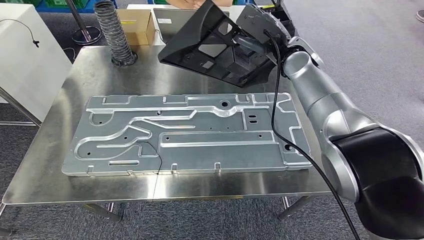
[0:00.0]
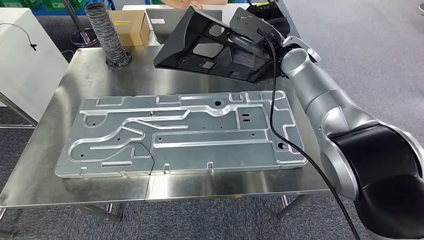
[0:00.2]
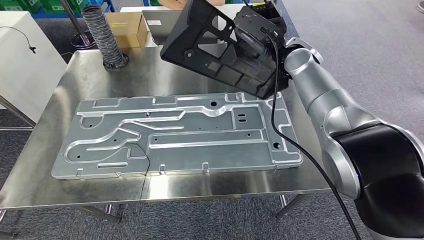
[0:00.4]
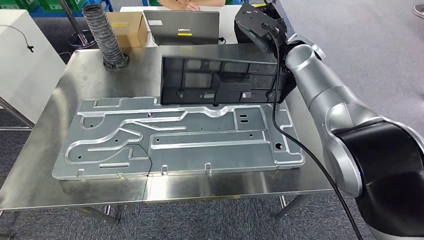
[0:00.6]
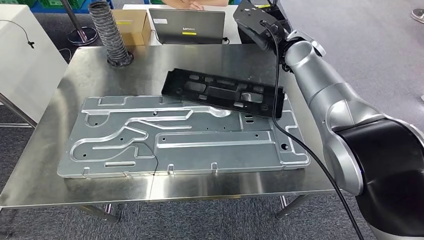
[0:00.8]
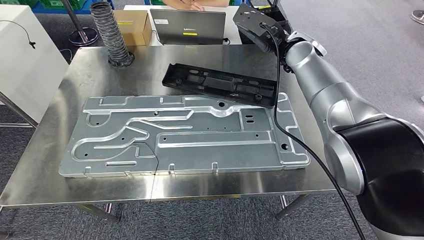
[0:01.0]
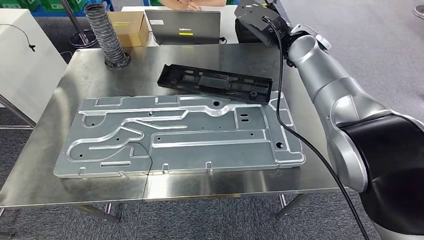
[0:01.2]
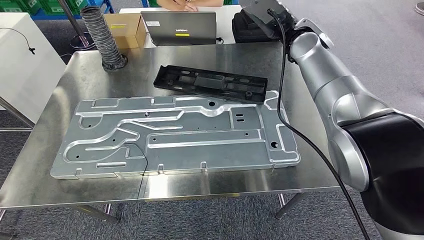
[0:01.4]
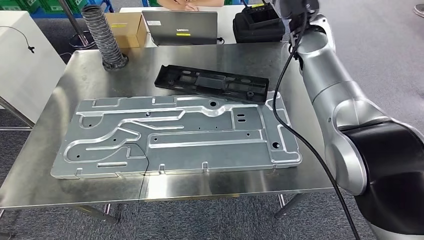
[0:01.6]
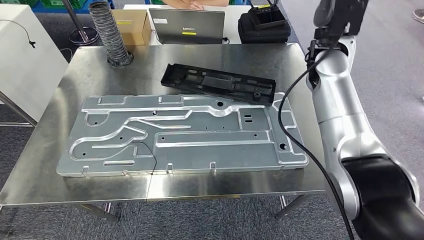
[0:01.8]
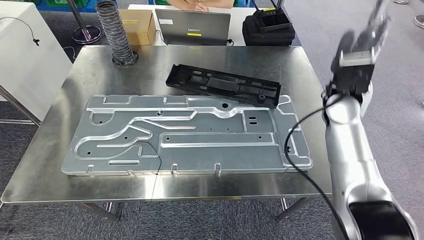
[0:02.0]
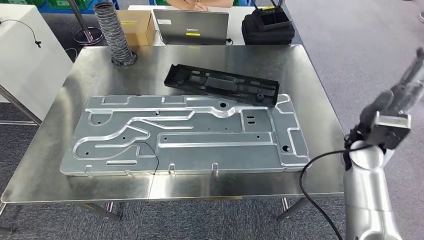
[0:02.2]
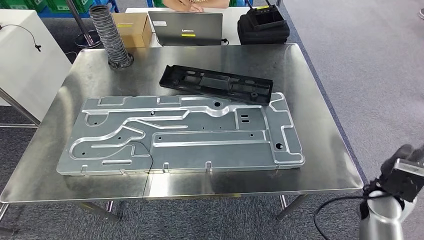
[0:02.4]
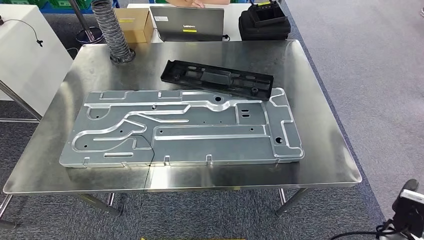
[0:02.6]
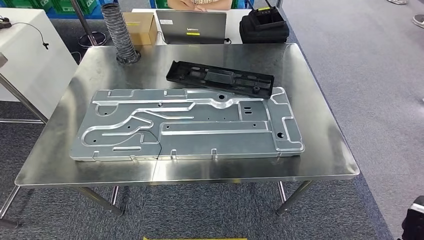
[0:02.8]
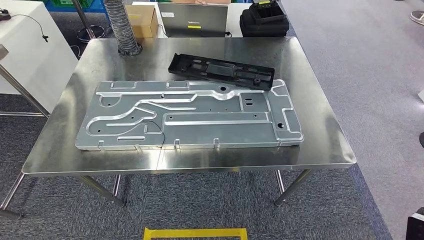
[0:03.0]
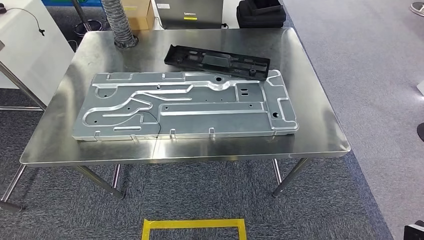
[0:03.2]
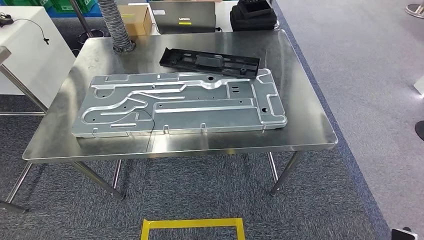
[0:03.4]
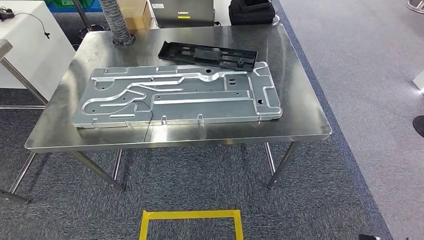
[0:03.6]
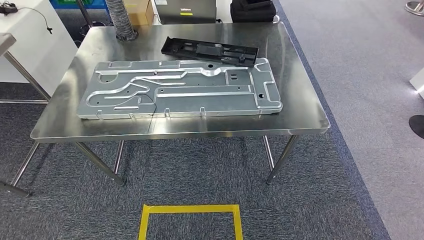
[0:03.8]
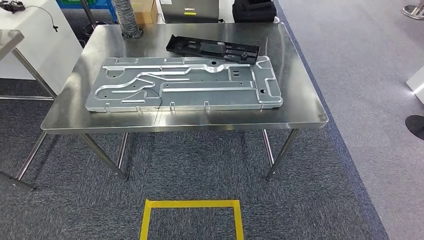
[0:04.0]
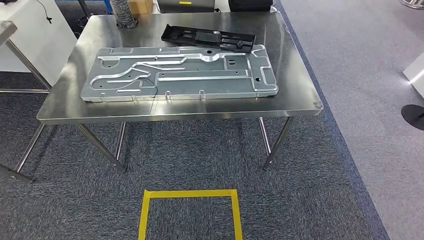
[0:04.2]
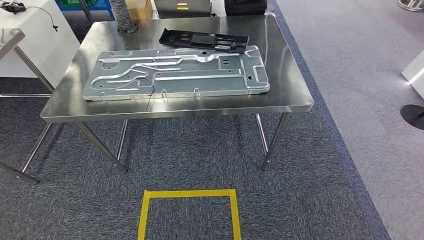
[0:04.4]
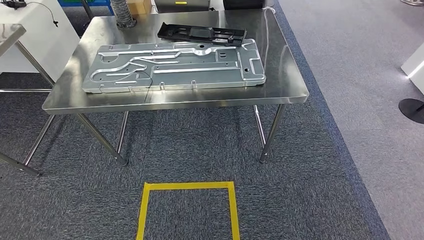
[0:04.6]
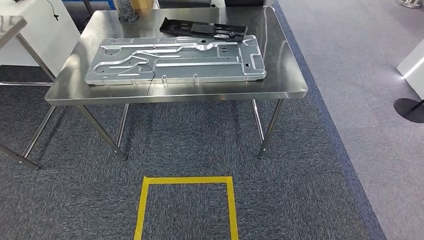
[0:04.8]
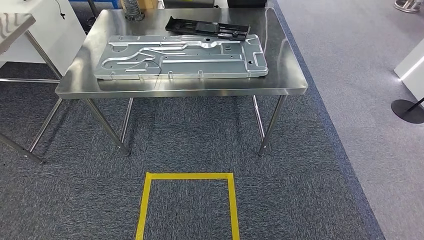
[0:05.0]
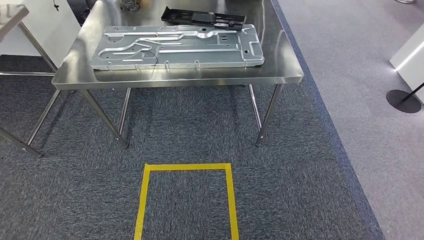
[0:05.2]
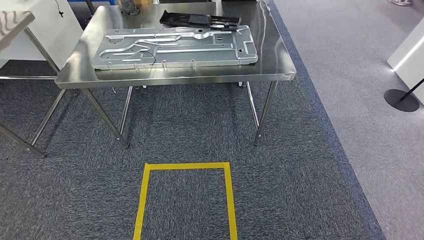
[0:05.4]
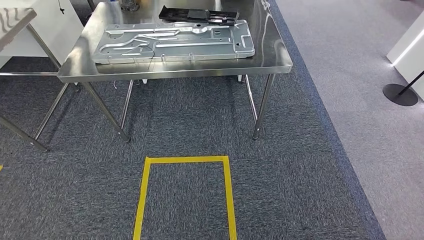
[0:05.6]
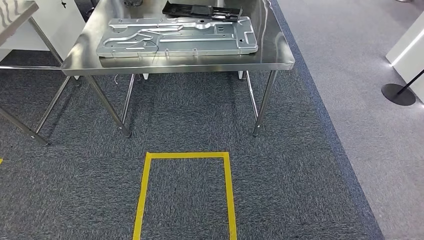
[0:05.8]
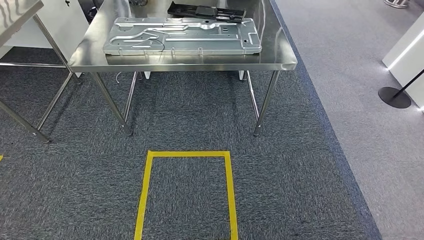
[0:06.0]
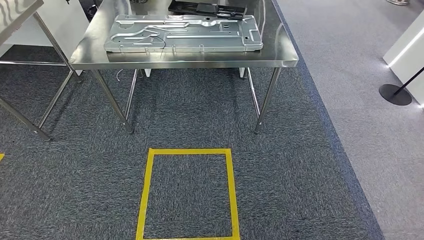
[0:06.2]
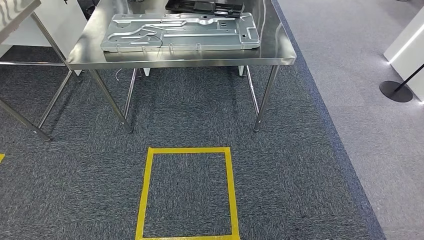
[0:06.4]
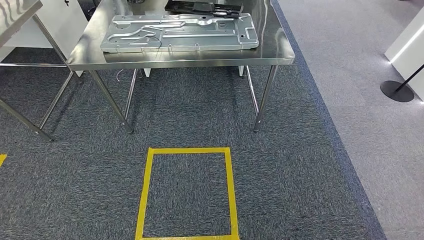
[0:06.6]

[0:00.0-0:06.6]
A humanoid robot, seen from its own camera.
Step, 0:00.0 to 0:02.6: Insert the large material into the corresponding slot on the workbench.
Step, 0:03.0 to 0:06.6: Move to the initial position of the shelf.
